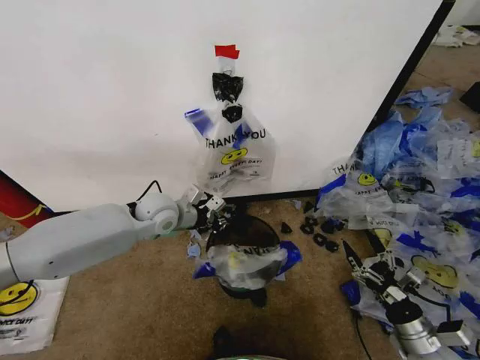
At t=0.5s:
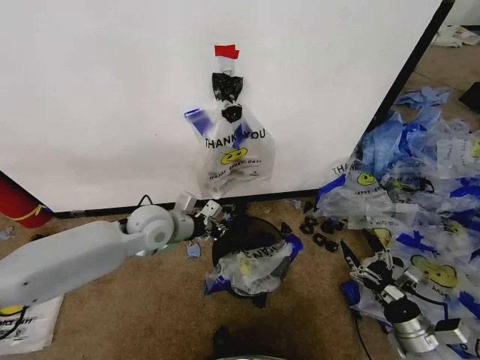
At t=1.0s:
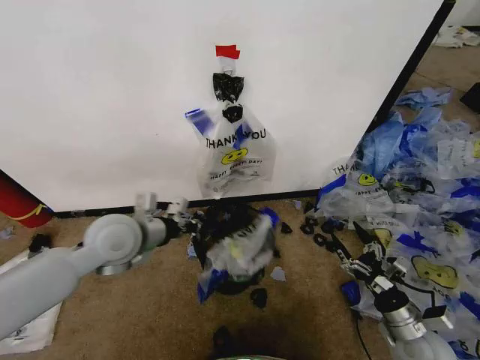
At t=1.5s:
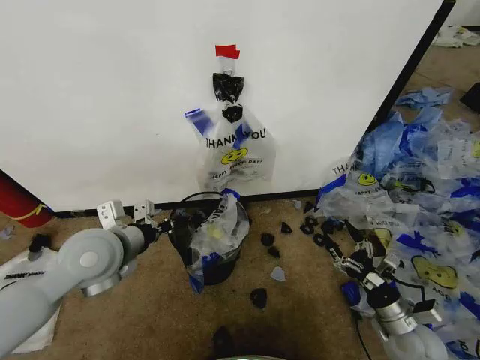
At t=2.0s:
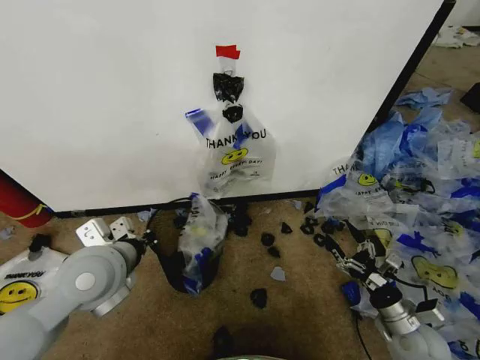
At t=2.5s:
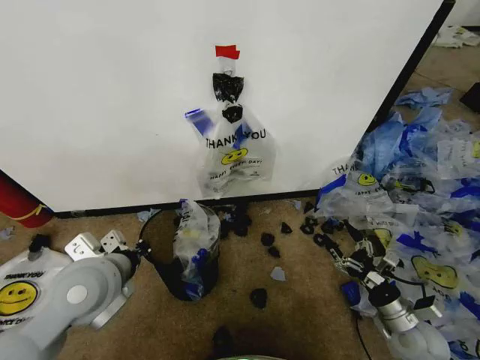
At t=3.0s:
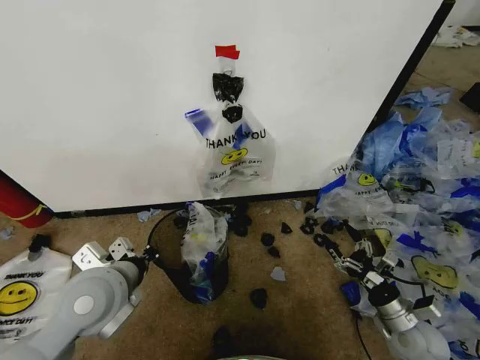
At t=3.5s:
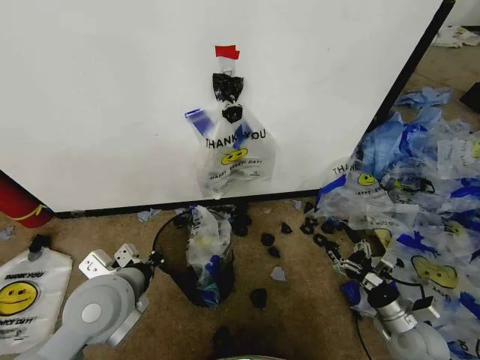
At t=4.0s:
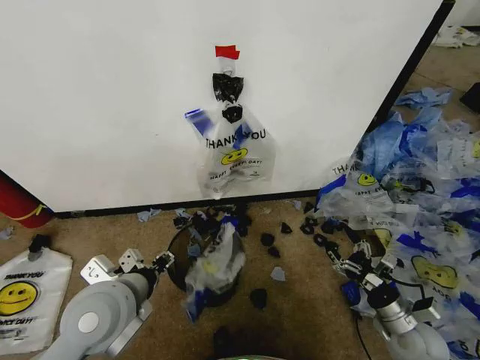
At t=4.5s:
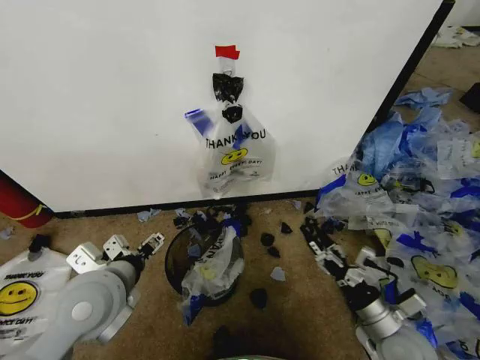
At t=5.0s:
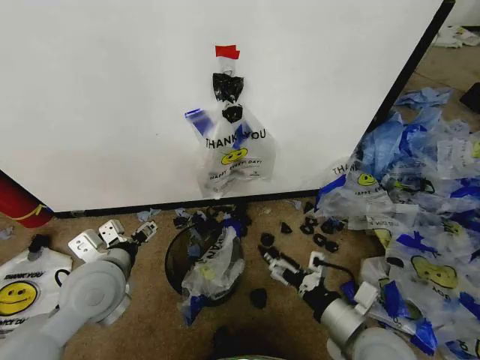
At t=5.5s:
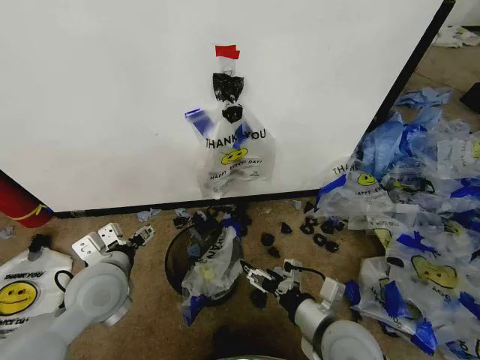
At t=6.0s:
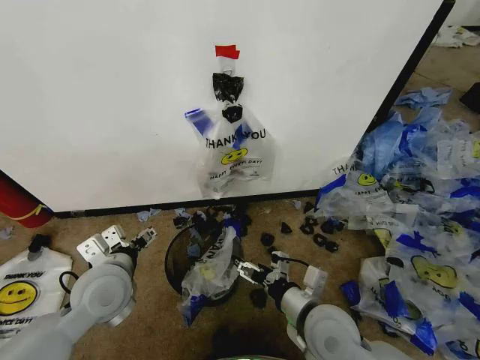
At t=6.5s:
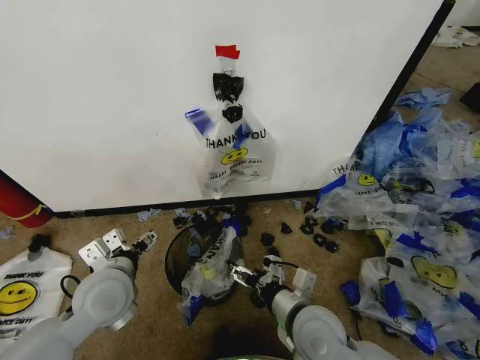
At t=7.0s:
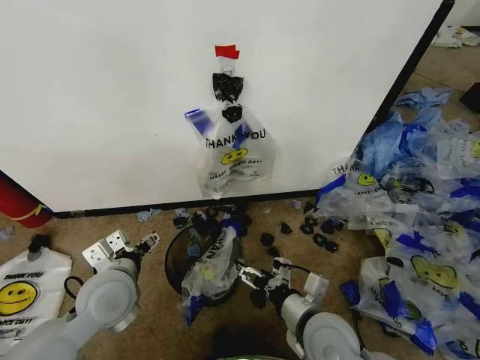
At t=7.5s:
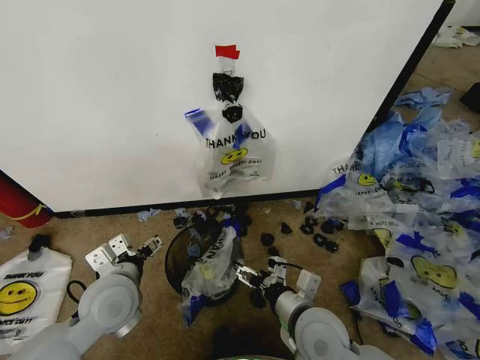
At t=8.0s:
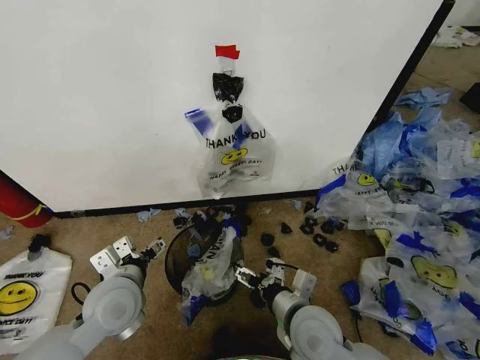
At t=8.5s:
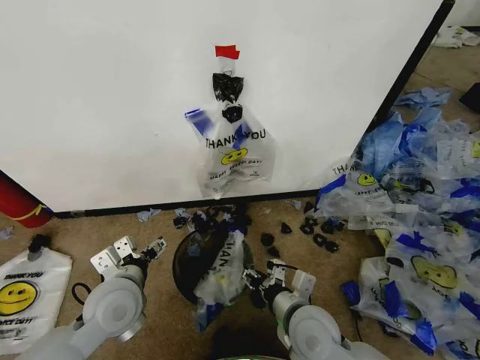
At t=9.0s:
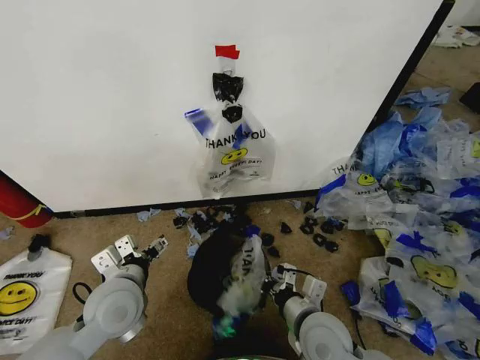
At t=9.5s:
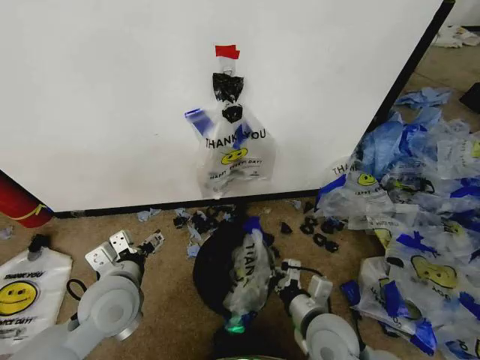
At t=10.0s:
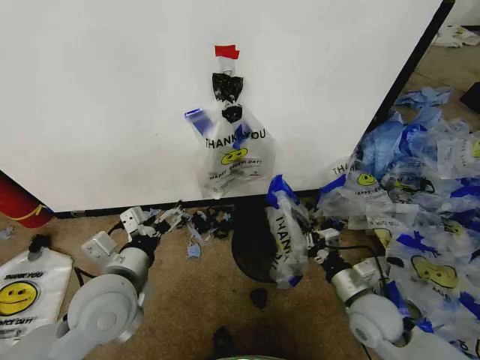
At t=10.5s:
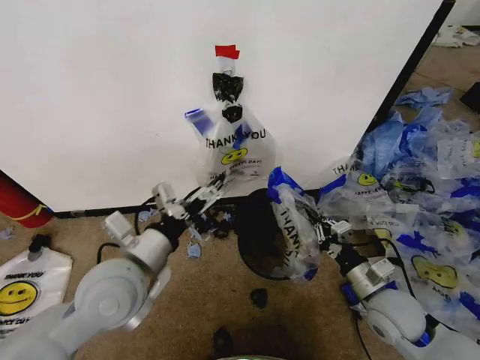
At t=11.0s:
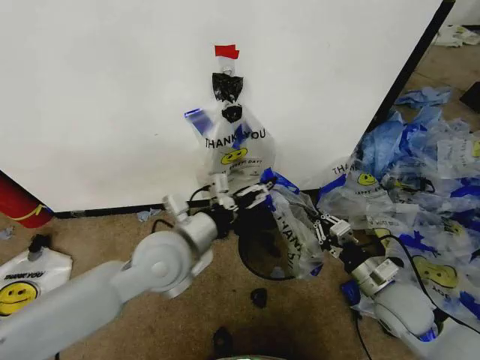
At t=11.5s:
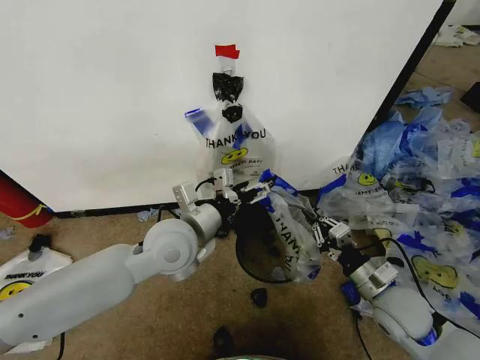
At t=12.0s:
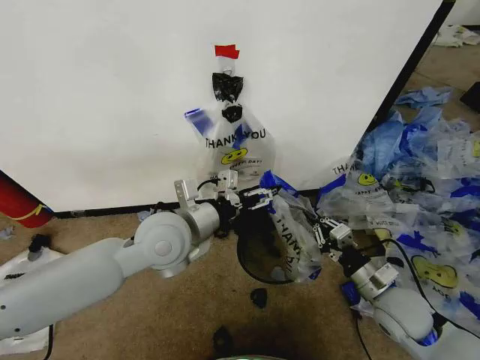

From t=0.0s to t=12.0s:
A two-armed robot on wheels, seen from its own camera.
Task of the whole recording: Pick up the garbage bag from the wall and place it over the trash bin.
From t=0.0s to t=2.0s: The left gripper is displaced backward by some 20 cm.
From t=2.0s to t=4.0s: The left gripper is displaced backward by some 5 cm, and opens.
From t=4.0s to t=6.0s: The left gripper shifts roughly 5 cm forward, and opens up, while the right gripper travels to the left and upward by approximately 25 cm.
From t=6.0s to t=8.0s: The grippers stay close to where they were, moving slightly.
From t=8.0s to t=10.0s: The right gripper goes approximately 15 cm to the right, and closes its fingers. The left gripper is displaced upward by some 5 cm.
From t=10.0s to t=12.0s: The left gripper goes approximately 15 cm forward, to the right and upward. Meanwhile the right gripper changes place by roughly 5 cm.

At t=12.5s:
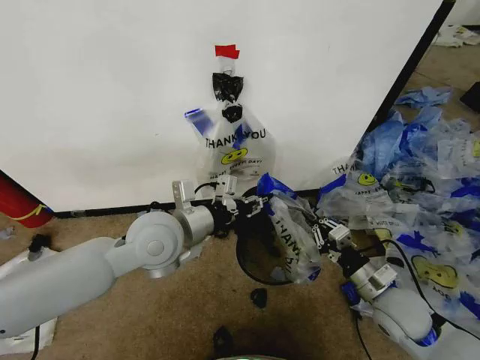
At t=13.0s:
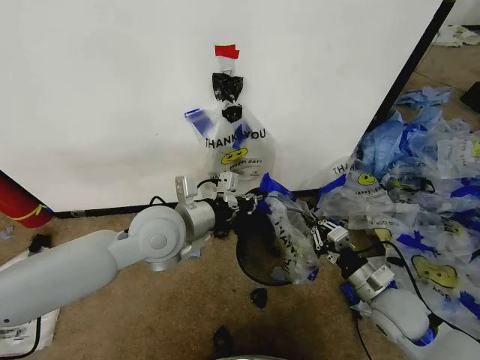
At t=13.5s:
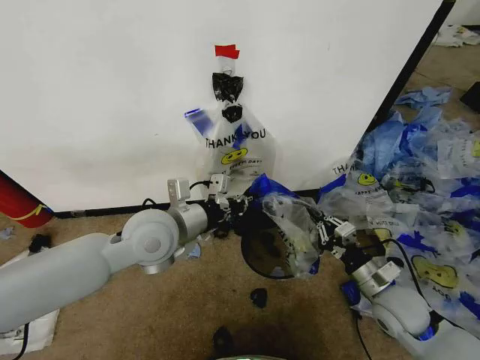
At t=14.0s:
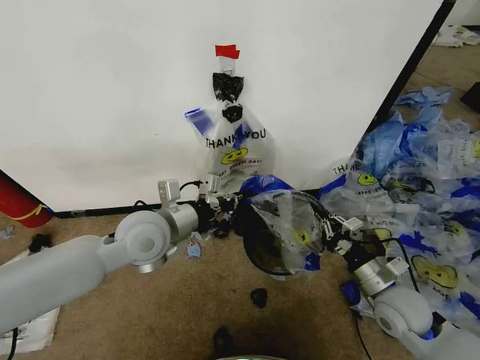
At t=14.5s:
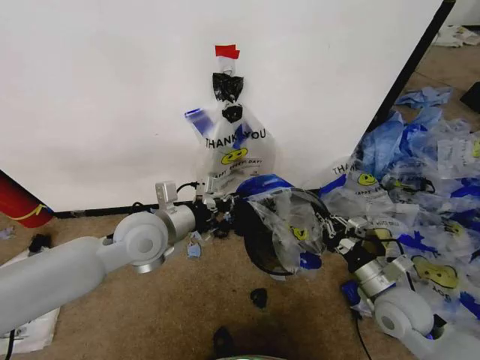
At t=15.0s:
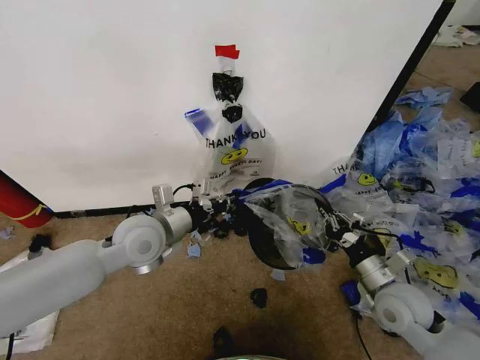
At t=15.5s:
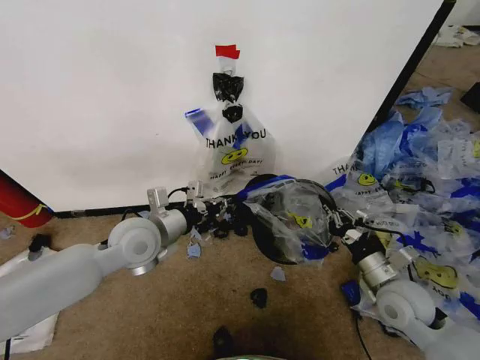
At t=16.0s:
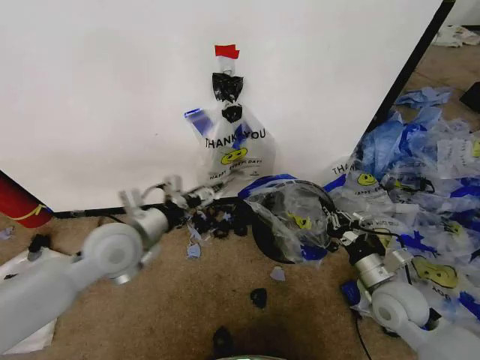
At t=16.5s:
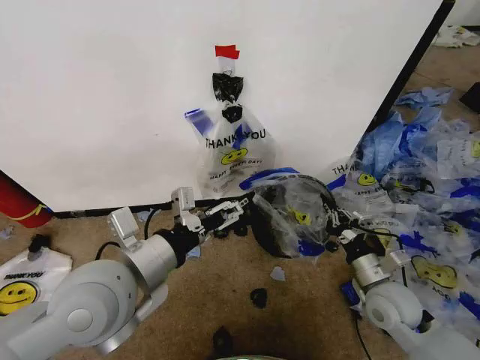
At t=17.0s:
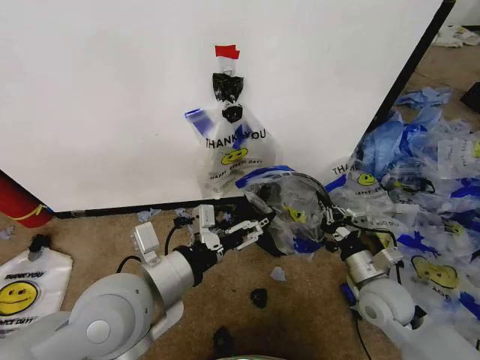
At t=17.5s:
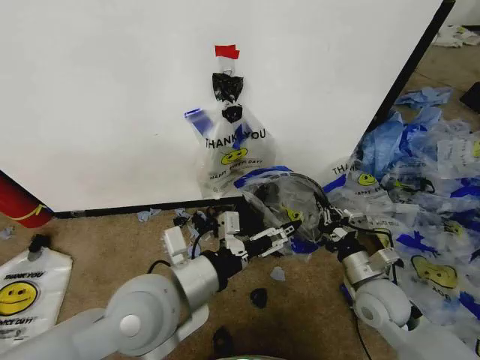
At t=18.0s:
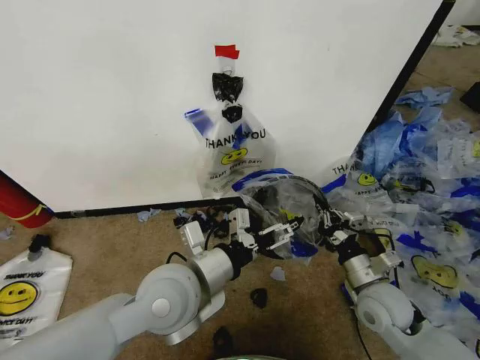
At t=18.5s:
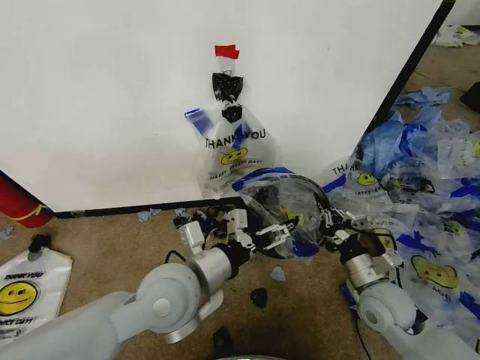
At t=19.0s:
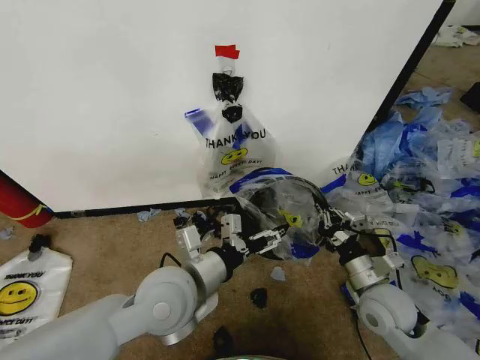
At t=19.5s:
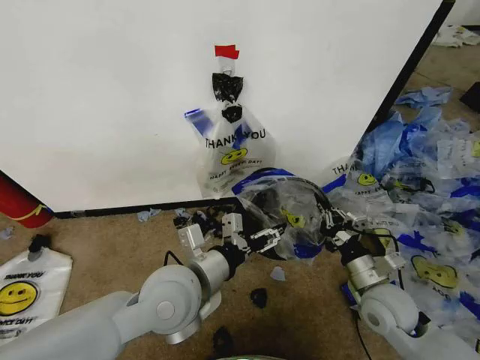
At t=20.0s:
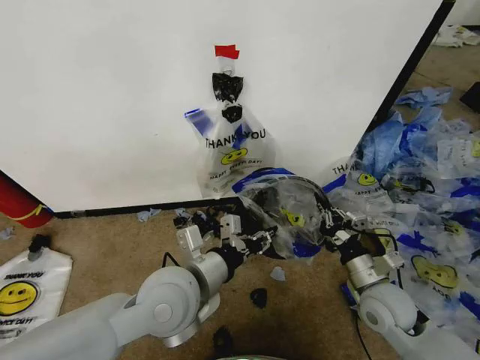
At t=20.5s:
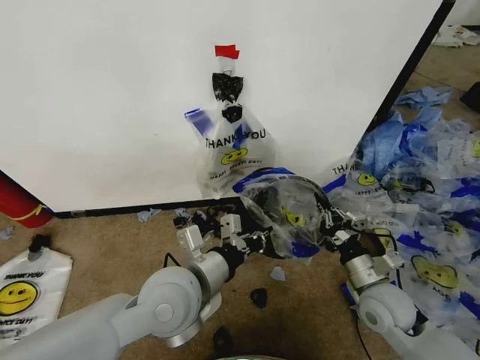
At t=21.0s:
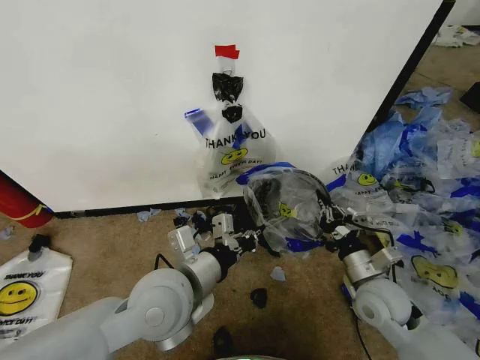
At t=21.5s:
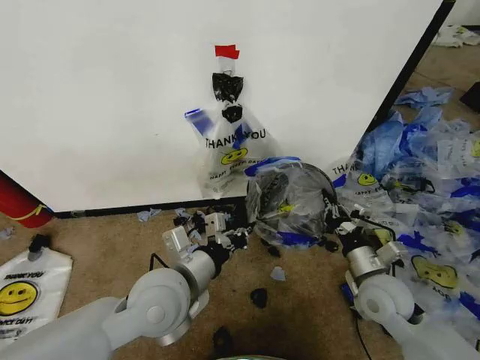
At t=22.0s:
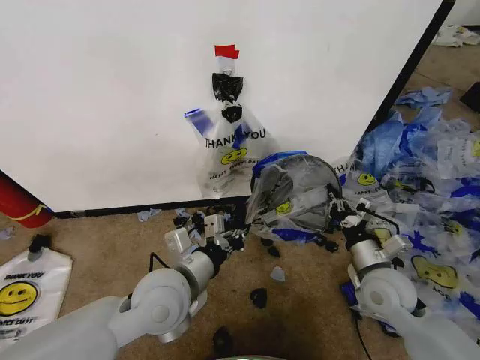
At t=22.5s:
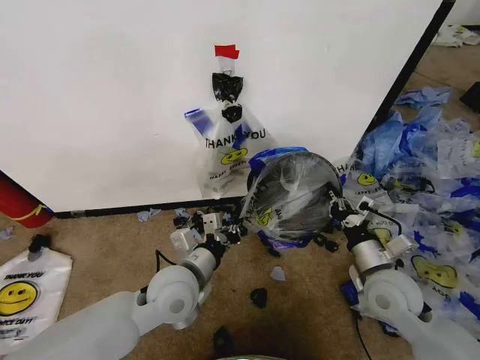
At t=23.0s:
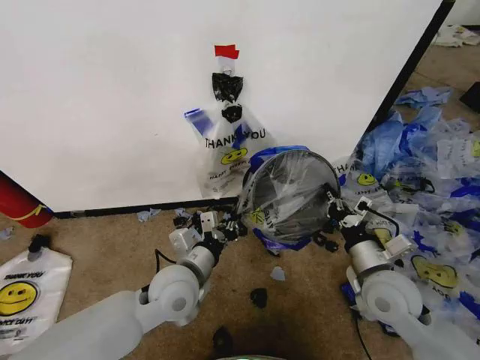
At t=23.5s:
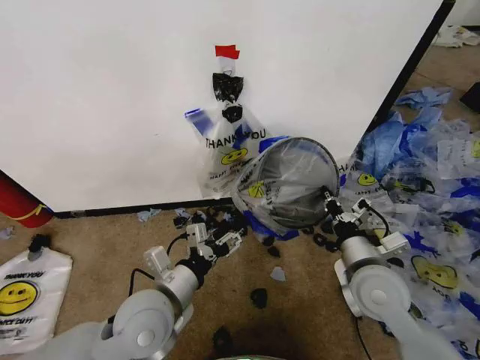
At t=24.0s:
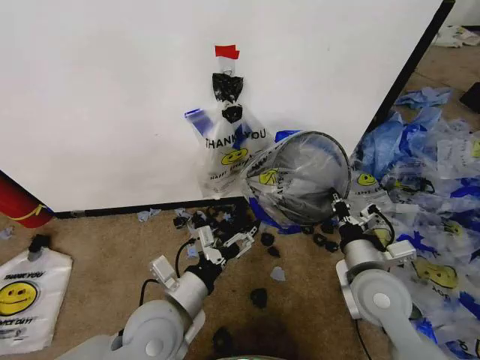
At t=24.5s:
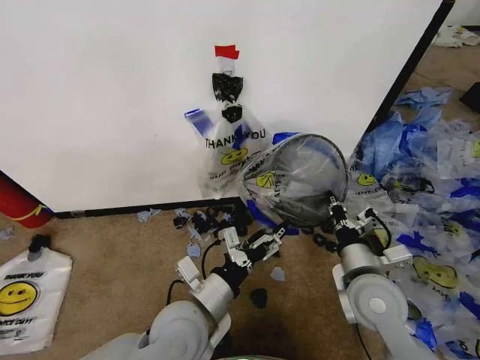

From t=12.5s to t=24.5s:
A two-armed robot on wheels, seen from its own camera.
Task of the whole recording: Pick up the garbage bag from the wall and place it over the trash bin.
From t=12.5s to t=14.5s: The left gripper shifts by about 5 cm.
From t=14.5s to t=16.5s: The left gripper travels backward and upward by about 15 cm, and opens up.
From t=16.5s to t=18.5s: The left gripper goes some 10 cm to the right and downward.
From t=18.5s to t=20.5s: The left gripper closes its fingers.
From t=20.5s to t=22.5s: The left gripper travels downward by about 5 cm.
From t=22.5s to t=24.5s: The right gripper heads to the left, covering roughly 5 cm. The left gripper shifts about 5 cm backward, and opens up.

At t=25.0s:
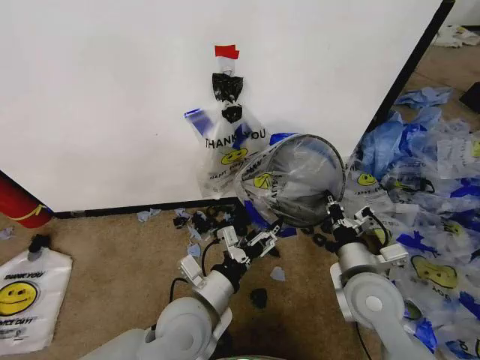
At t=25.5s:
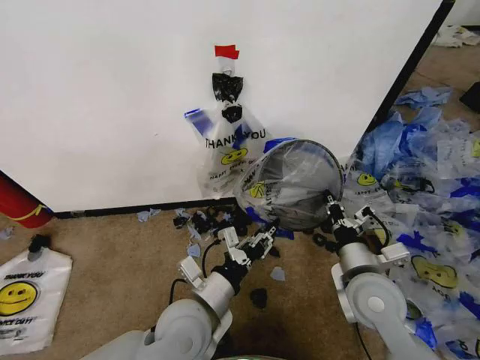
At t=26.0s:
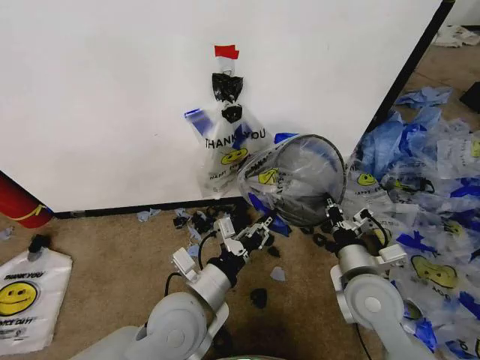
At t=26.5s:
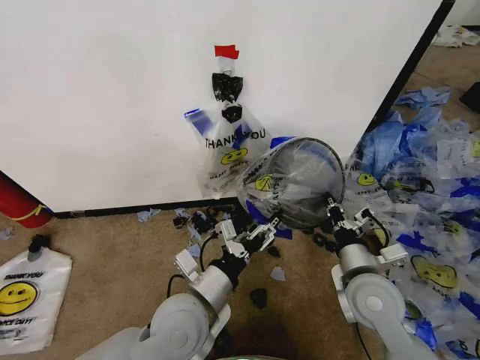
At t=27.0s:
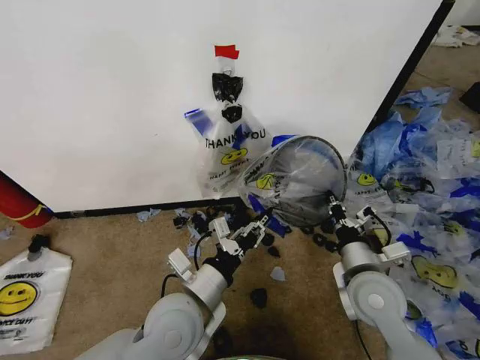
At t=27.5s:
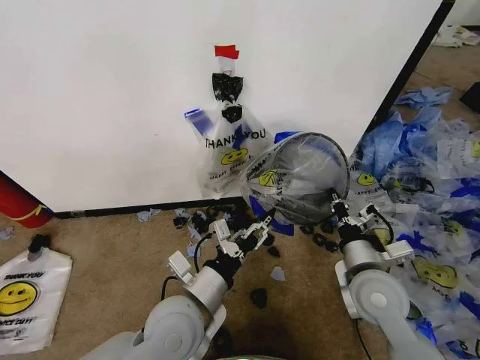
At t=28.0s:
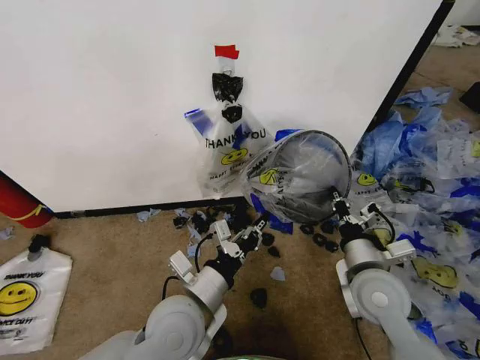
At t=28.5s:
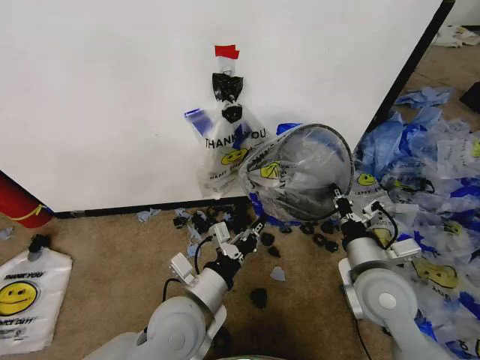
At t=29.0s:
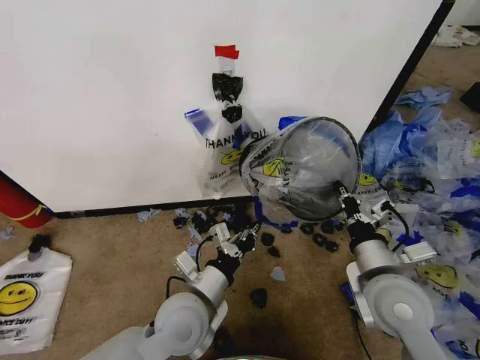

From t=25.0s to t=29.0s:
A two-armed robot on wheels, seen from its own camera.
Task of the whole recording: Pick up the garbage bag from the wall and place it over the trash bin.
From t=25.0s to t=27.0s: The left gripper closes.
From t=27.0s to t=29.0s: The grippers make only small movements.
